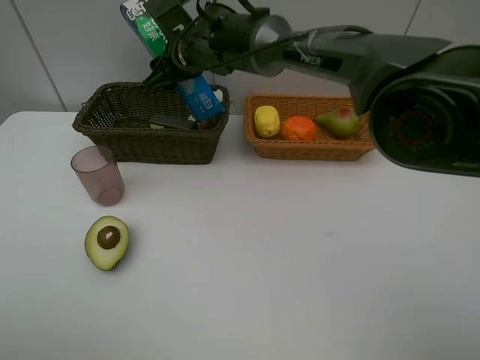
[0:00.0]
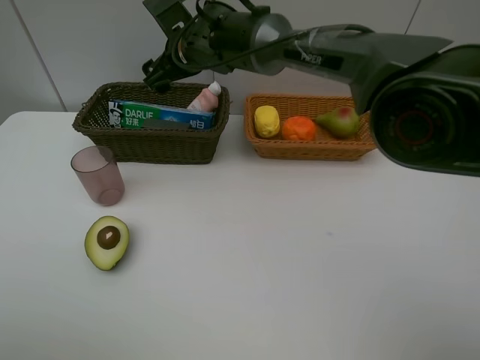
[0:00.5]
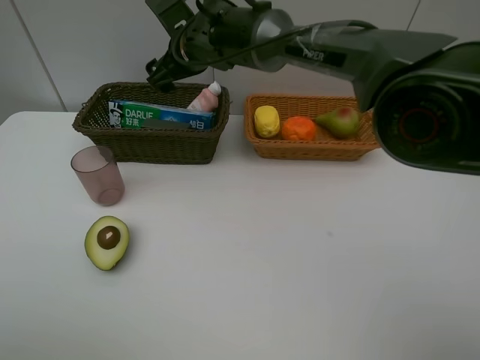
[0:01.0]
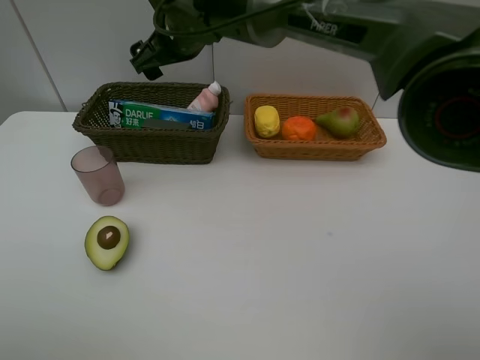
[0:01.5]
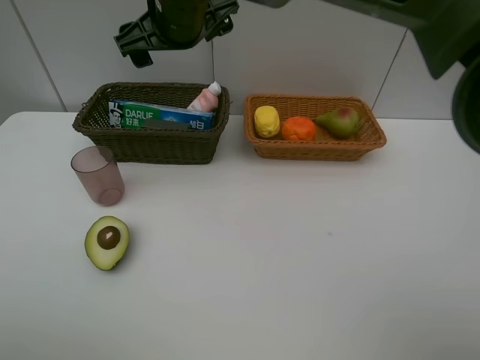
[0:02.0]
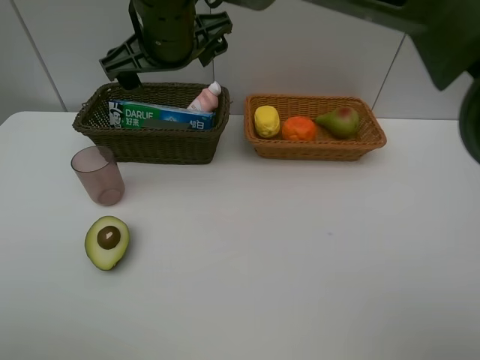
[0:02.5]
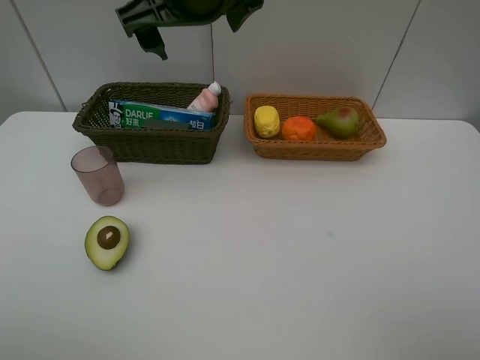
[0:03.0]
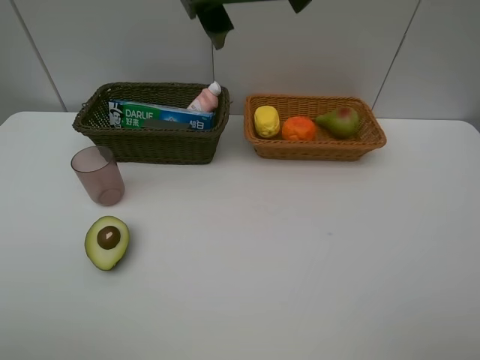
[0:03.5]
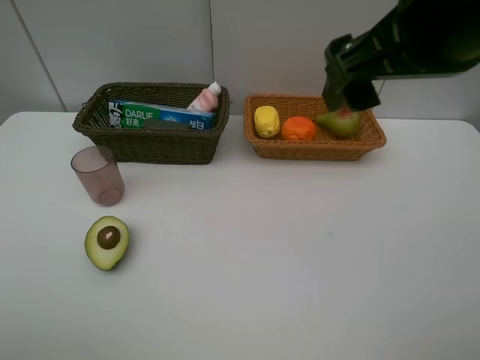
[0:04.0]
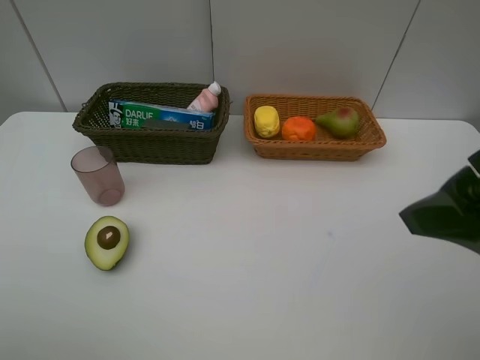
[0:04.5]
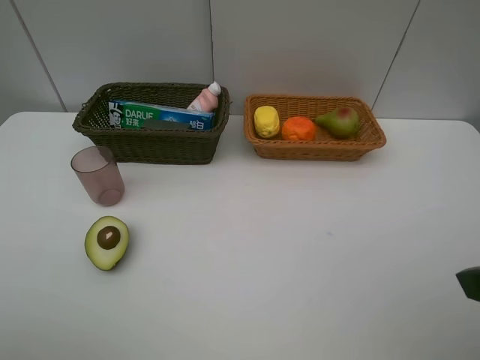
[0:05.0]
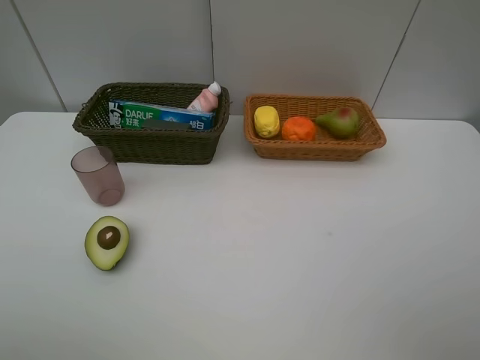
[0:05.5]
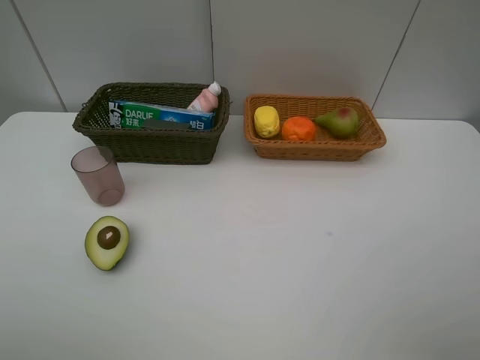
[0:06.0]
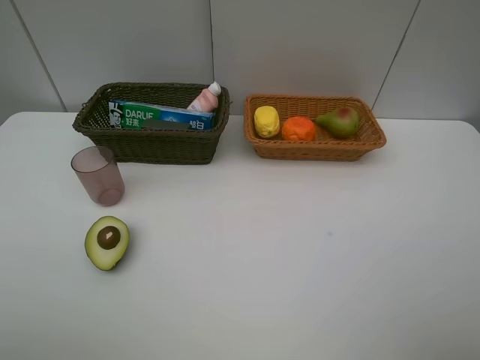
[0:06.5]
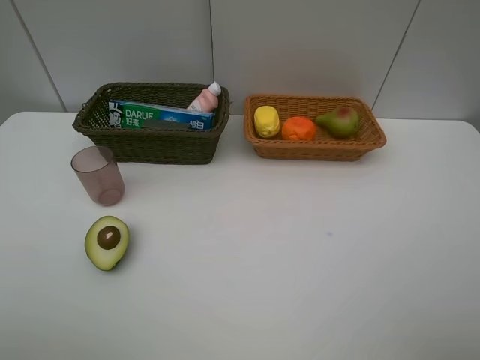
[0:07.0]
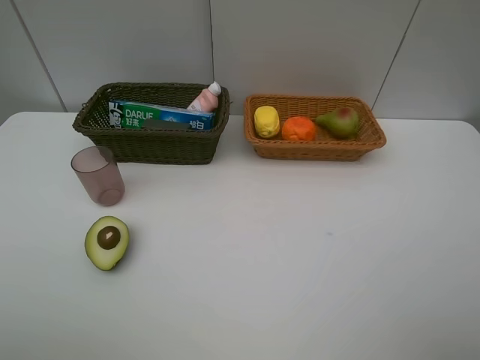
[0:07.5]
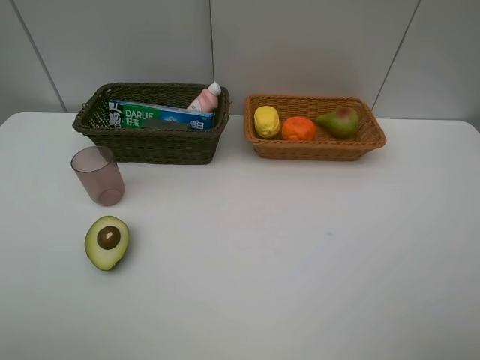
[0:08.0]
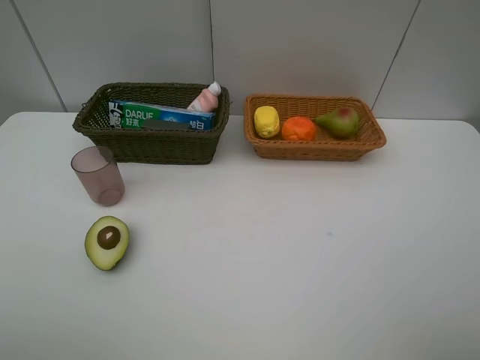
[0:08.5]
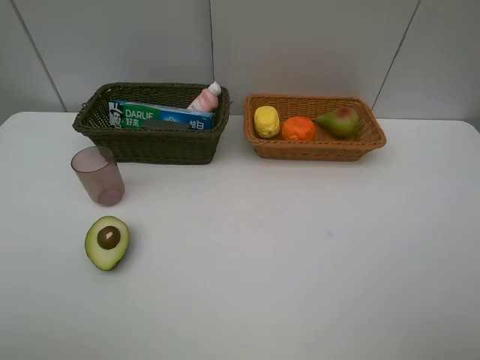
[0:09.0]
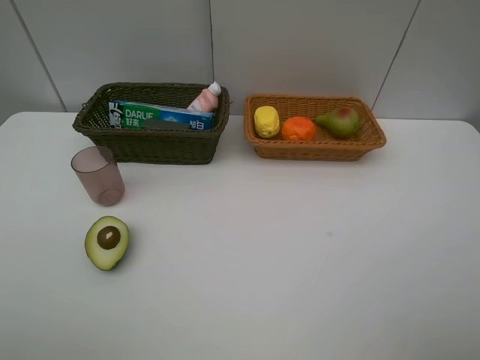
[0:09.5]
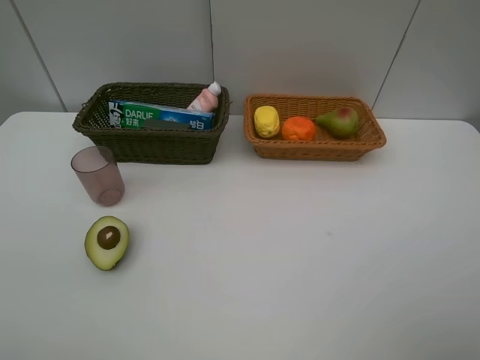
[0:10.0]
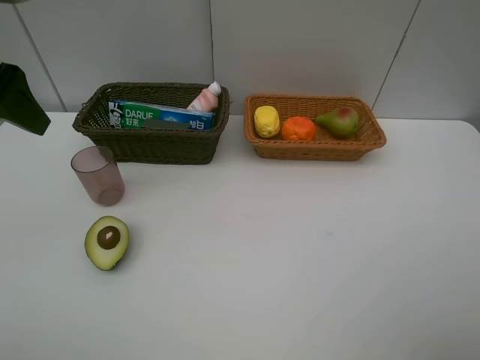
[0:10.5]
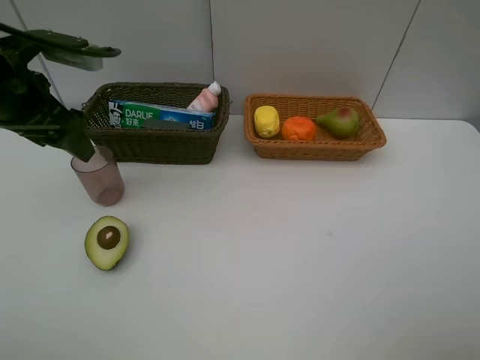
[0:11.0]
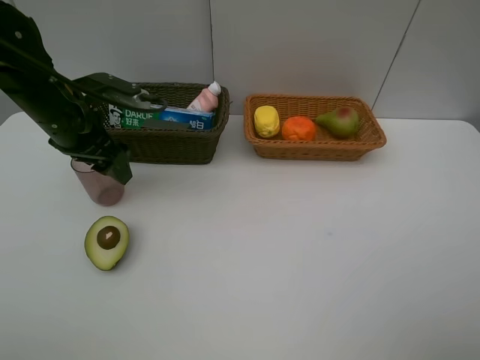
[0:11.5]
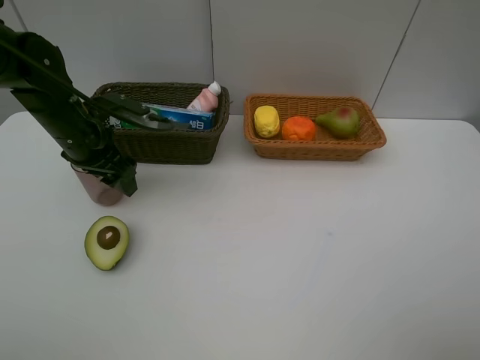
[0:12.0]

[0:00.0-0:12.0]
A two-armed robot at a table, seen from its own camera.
Task of the whole recording: Place multiple objects separately in different baskets.
0.0 to 2.0 s: The right gripper is displaced upward and backward by some 10 cm, and opens its fingers.
2.0 to 4.0 s: The right gripper travels to the right and backward by some 30 cm.
4.0 to 6.0 s: The right gripper moves to the right, backward and downward, roughly 25 cm.
10.0 to 12.0 s: The left gripper shifts about 25 cm forward and downward.

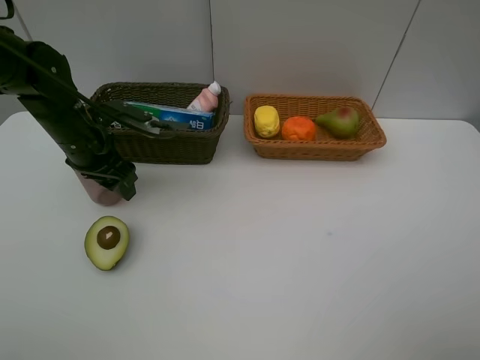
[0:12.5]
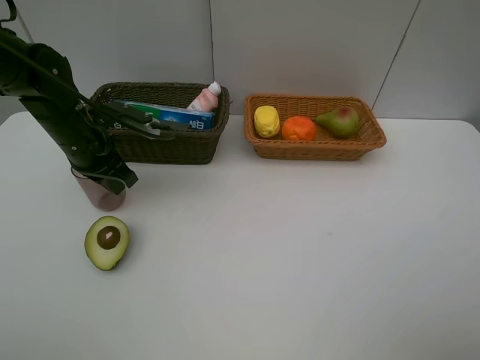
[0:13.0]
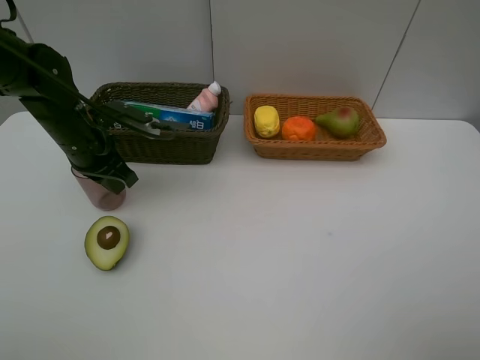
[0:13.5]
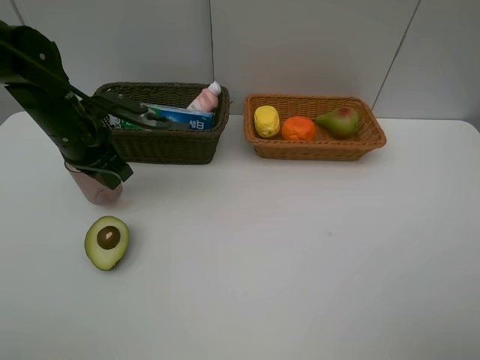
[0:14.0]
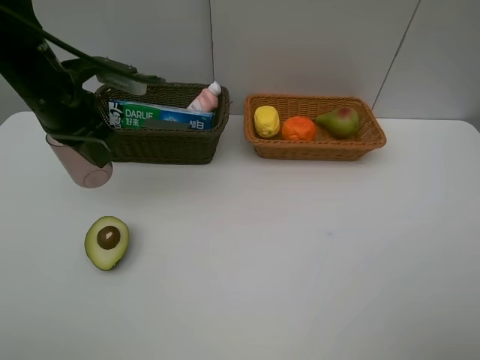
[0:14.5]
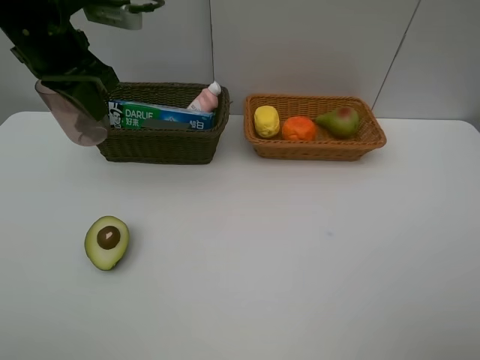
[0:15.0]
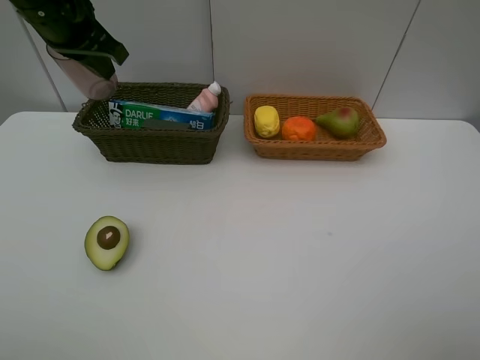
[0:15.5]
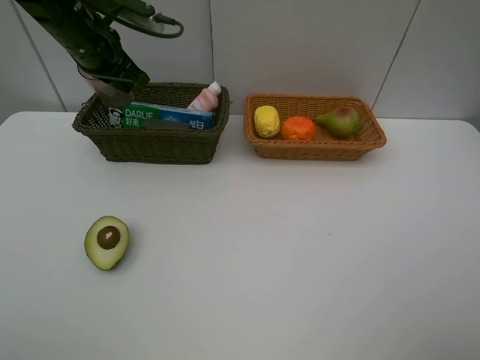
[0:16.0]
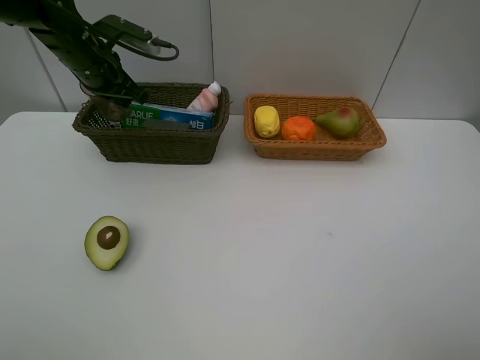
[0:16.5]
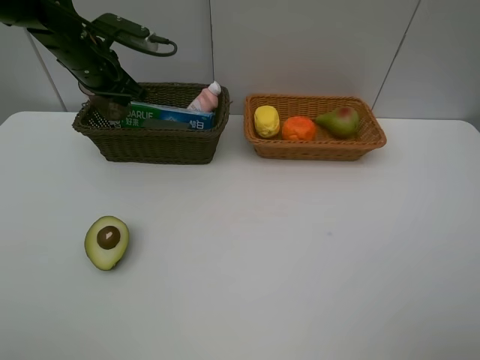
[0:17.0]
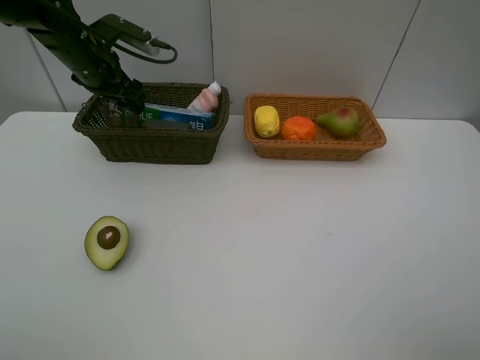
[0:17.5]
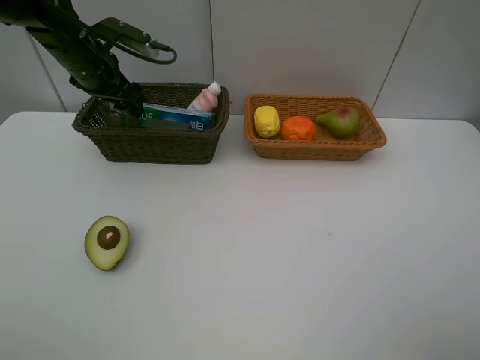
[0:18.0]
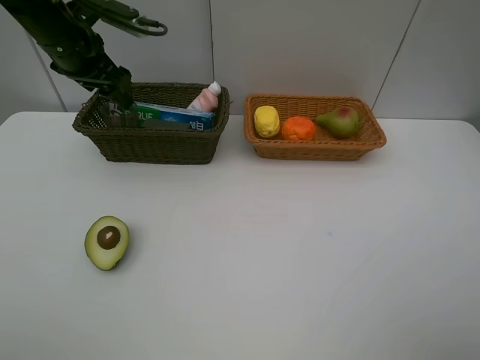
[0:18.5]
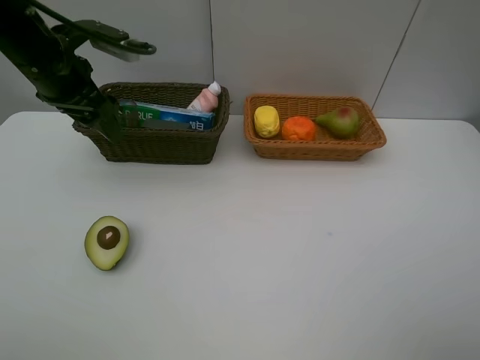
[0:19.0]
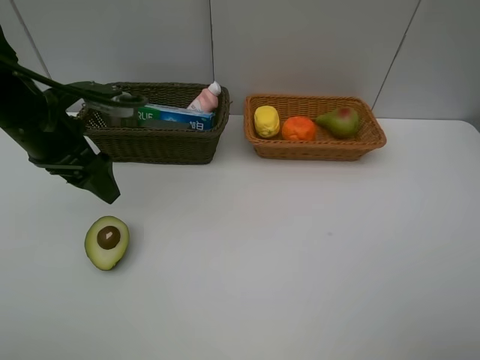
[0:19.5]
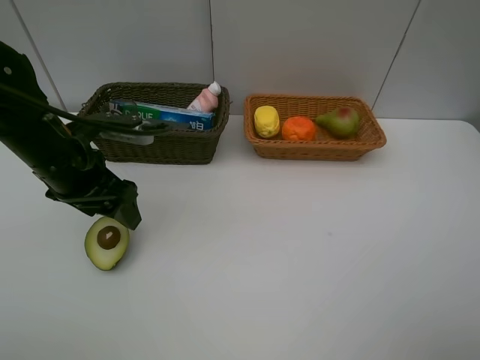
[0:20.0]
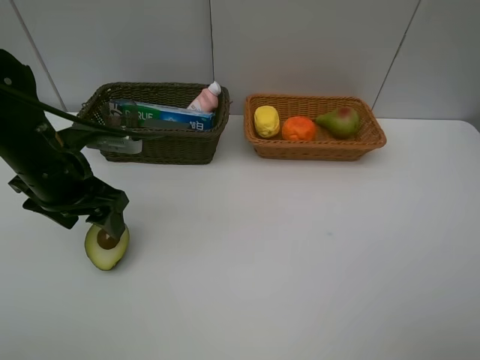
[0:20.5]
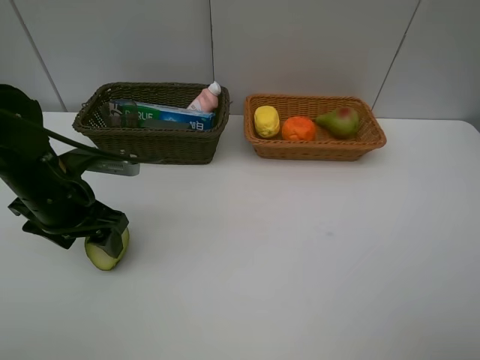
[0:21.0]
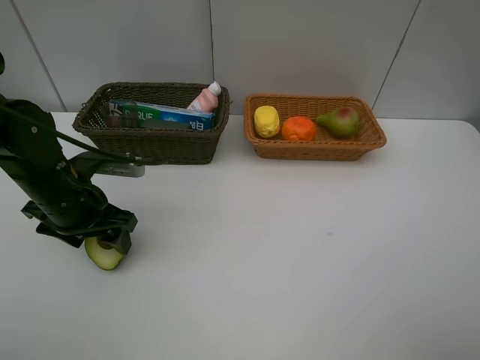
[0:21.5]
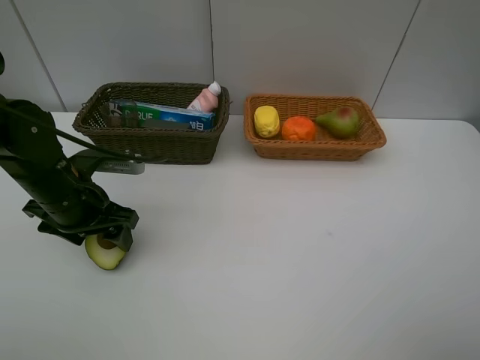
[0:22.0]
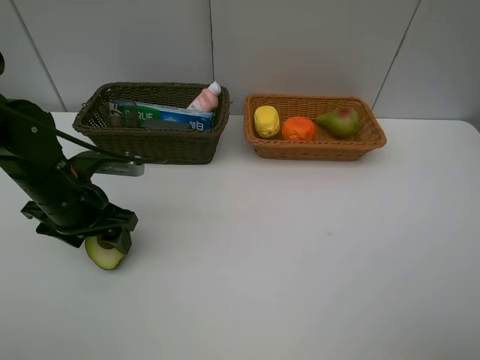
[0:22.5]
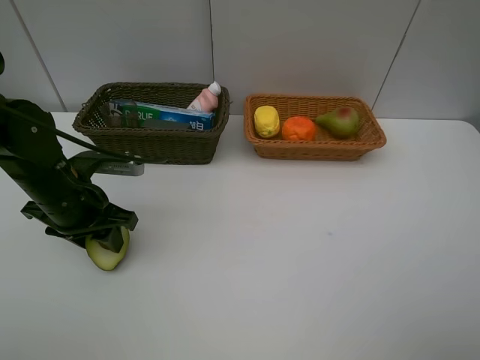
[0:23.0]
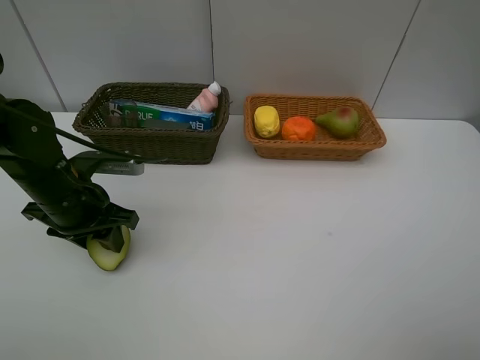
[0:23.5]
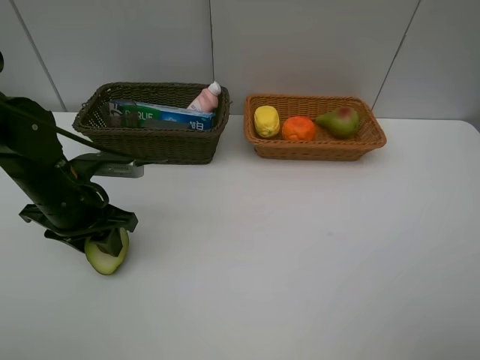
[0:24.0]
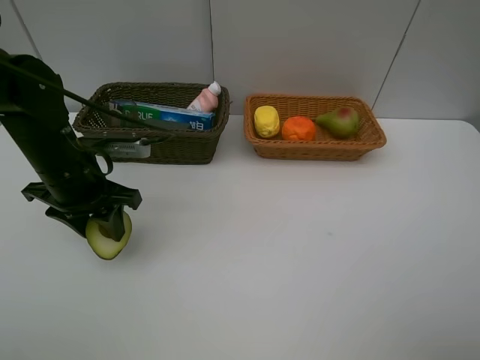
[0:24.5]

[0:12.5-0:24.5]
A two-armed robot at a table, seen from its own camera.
Task of the whole recording: Place multiple objects separately in different baskets.
Step, 14.5 to 17.5 s: Place the red cup in the dark basket with left gripper.
Step, 18.0 to 24.0 s: Pick up the avocado with left gripper.
12.5 to 14.5 s: The left gripper goes some 10 cm upward, and closes its fingers.
14.5 to 16.5 s: The left gripper moves forward, roughly 10 cm.
16.5 to 18.5 s: The left gripper ends up some 5 cm from where it was, and opens.
18.5 to 20.5 s: The left gripper goes approximately 20 cm backward and downward.
20.5 to 22.5 s: The grippers move only a little.
22.5 to 24.5 s: The left gripper closes its fingers.

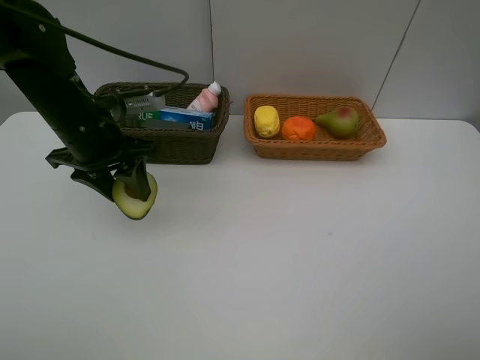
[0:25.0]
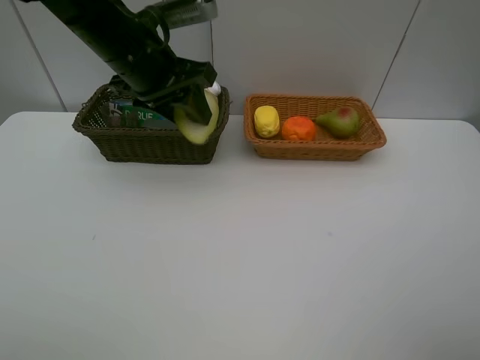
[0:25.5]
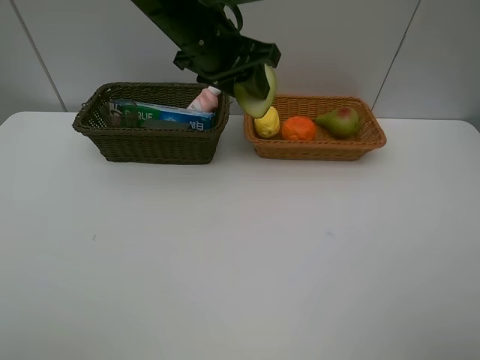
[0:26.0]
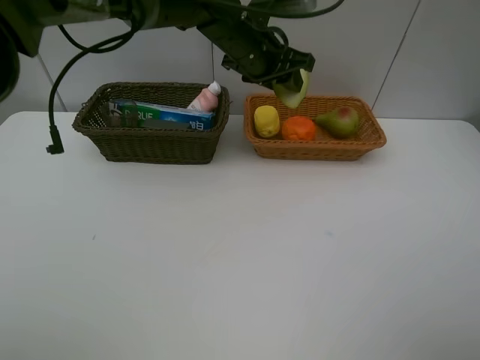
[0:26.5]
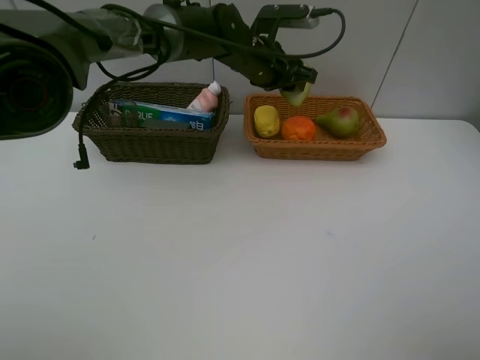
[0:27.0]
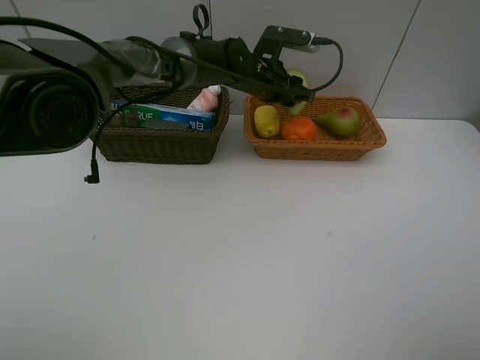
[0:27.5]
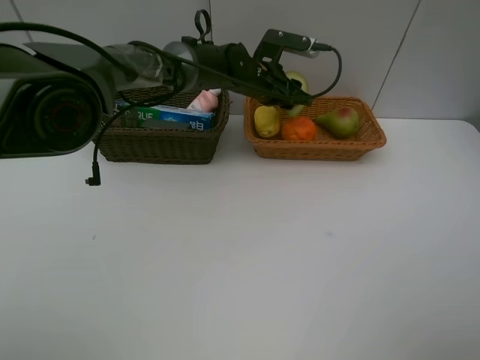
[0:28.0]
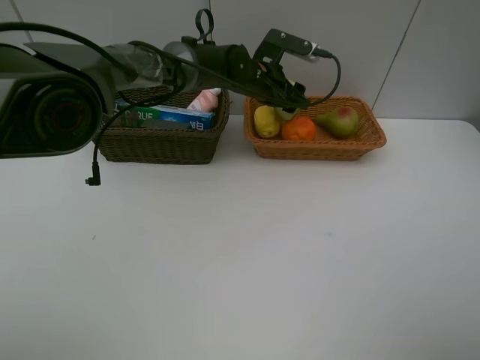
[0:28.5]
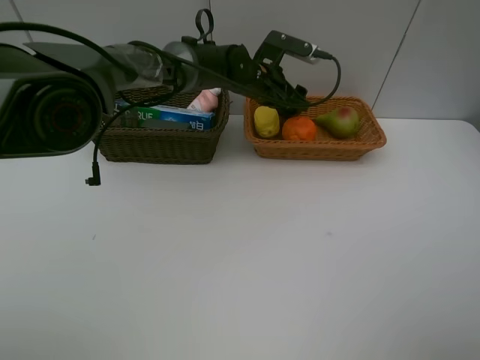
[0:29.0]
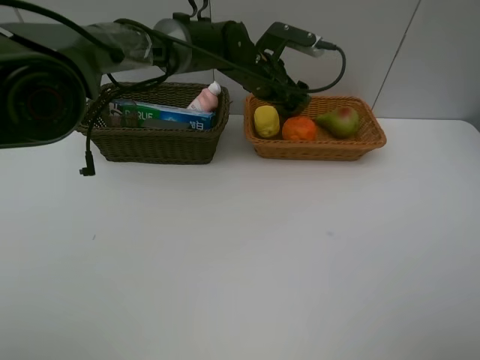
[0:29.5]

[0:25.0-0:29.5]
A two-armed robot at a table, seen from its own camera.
Task of the whole recording: Place multiple objects separately in different baskets.
25.0 to 27.0 s: The left gripper heads to the right and forward, covering roughly 25 cm.
27.0 to 29.5 s: The left gripper opens its fingers.
